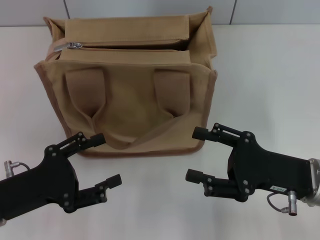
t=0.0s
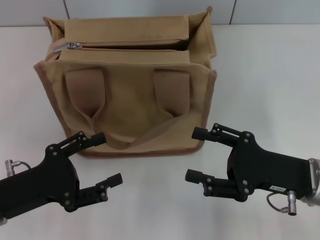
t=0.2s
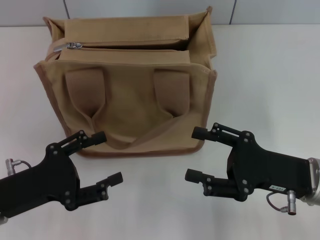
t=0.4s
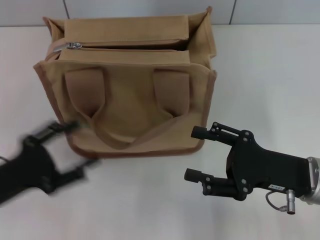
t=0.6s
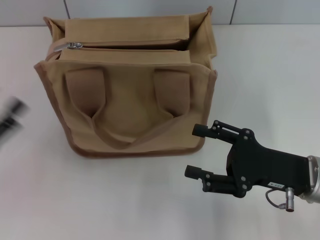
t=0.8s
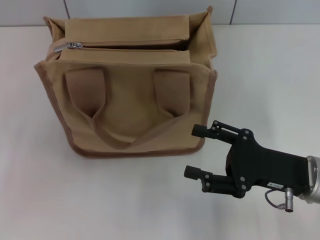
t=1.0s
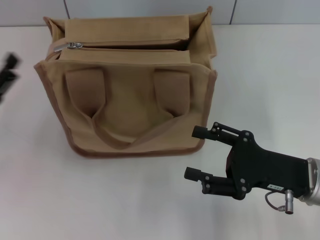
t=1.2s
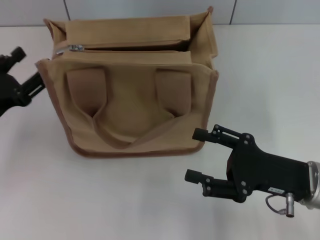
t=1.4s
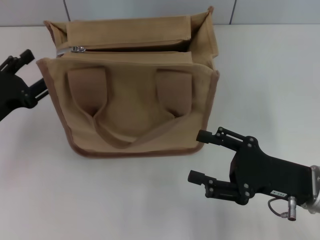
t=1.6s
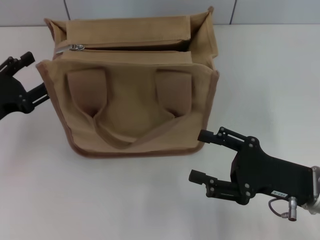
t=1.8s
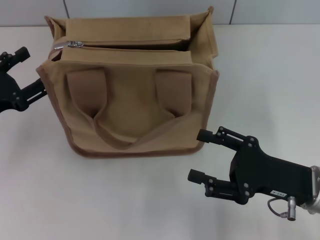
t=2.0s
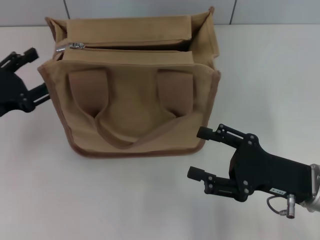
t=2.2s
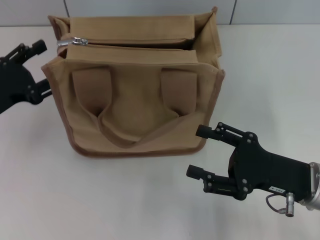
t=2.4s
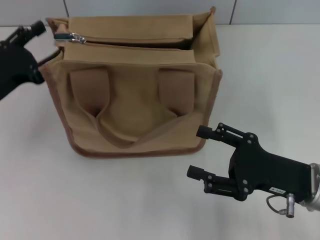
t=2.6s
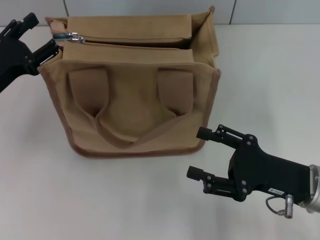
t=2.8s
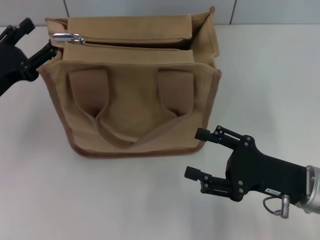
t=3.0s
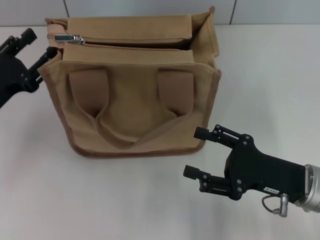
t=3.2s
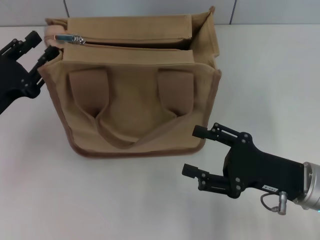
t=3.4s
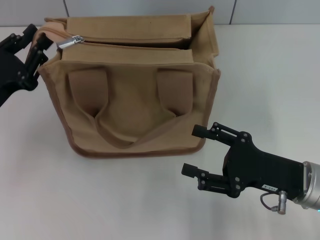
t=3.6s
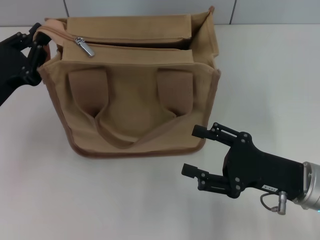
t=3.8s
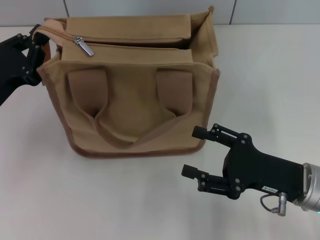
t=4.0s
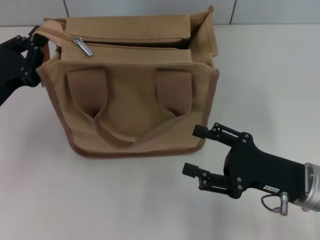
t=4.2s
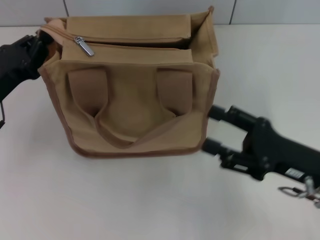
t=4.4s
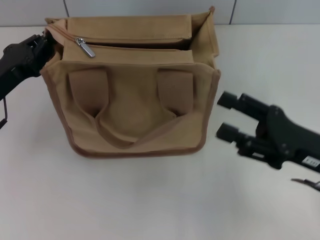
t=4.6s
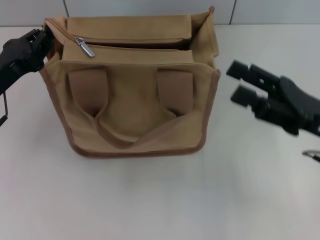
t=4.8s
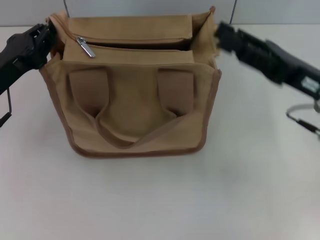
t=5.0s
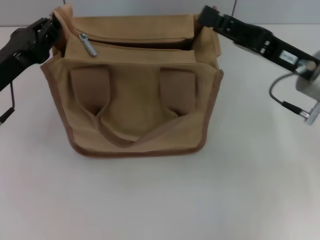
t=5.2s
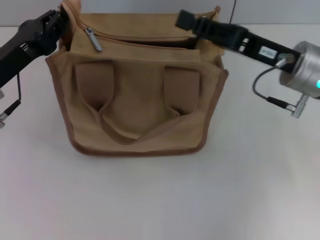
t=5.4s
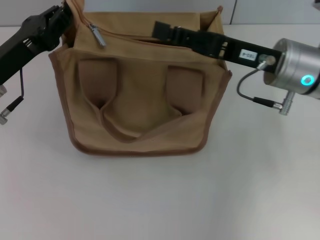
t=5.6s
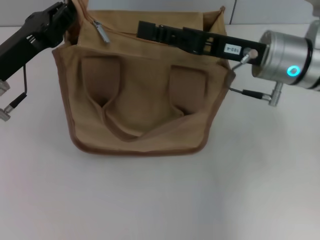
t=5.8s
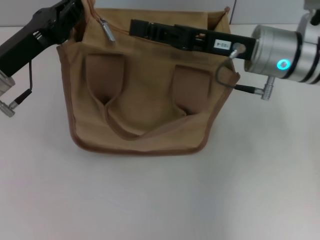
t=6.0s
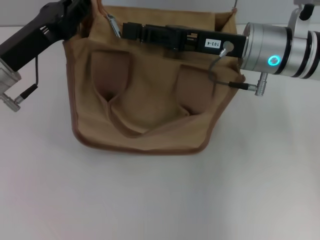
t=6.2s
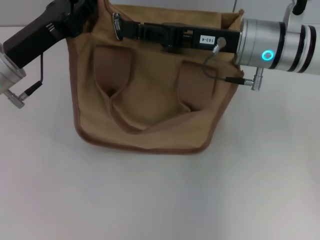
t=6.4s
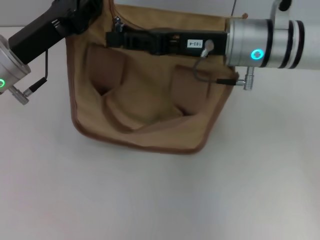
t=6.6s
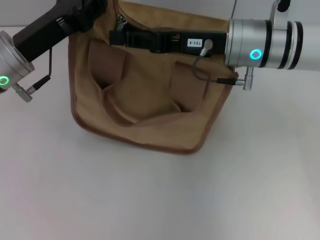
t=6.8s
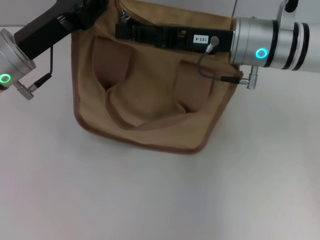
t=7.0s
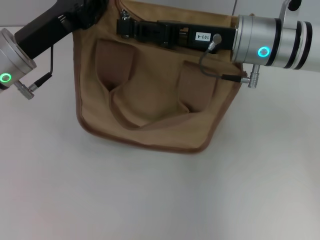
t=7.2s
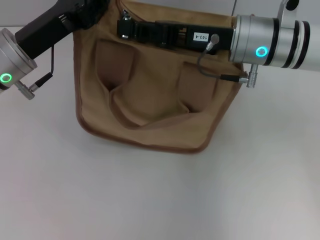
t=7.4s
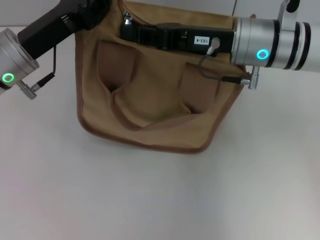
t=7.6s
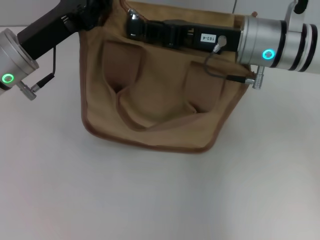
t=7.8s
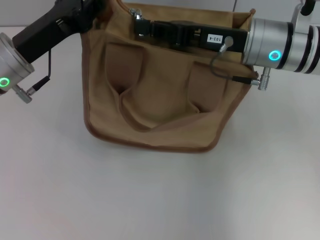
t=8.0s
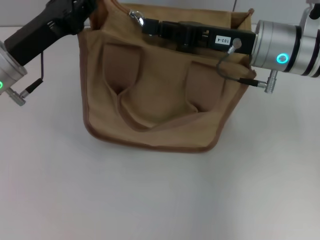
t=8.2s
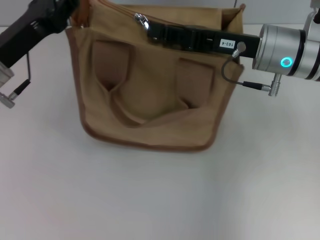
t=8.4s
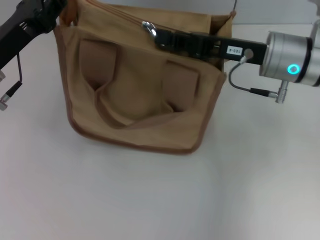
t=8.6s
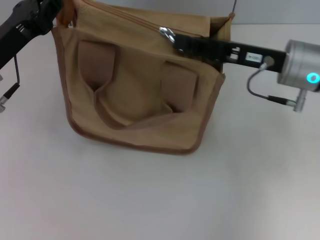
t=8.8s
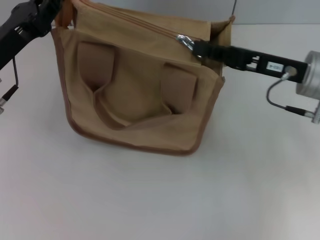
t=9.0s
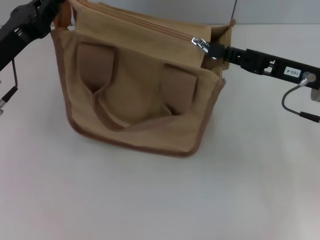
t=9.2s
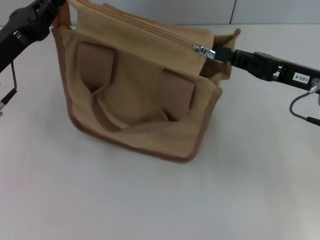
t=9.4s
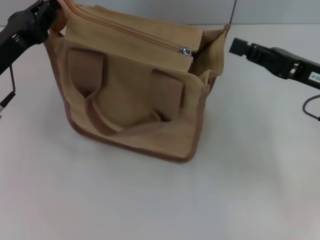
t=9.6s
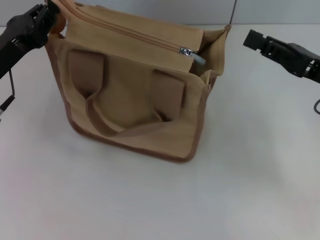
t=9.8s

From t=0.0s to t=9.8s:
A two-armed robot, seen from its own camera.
Step, from t=0.0s to t=9.4s: Pull up the zipper with your right hand.
From t=0.0s to t=1.4s: The left gripper heads forward, covering roughly 5 cm.
From t=1.4s to t=2.8s: The left gripper moves approximately 5 cm.
From t=2.8s to t=4.2s: The left gripper closes up.
From t=4.2s to t=5.6s: The right gripper is displaced forward and upward by about 15 cm, and closes up; the left gripper ends up roughly 5 cm from where it was.
From t=5.6s to t=7.0s: The right gripper ends up approximately 5 cm from where it was. The left gripper ends up approximately 5 cm from where it was.
From t=7.0s to t=8.4s: The grippers make only small movements.
From t=8.4s to t=9.8s: The right gripper moves to the right and backward, some 15 cm.

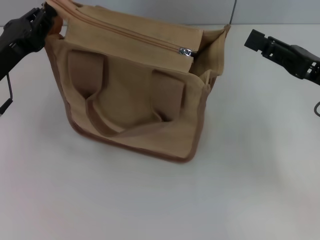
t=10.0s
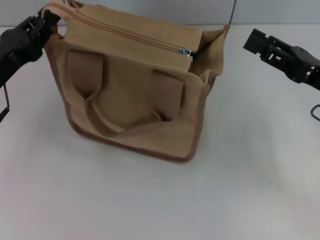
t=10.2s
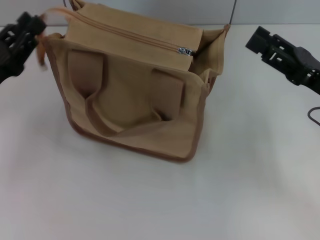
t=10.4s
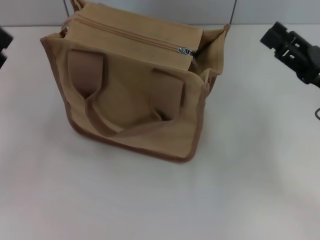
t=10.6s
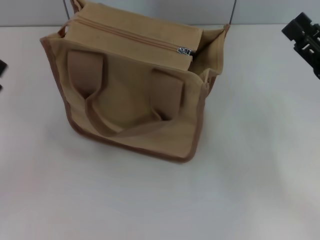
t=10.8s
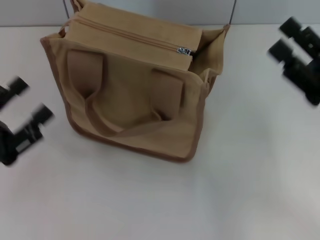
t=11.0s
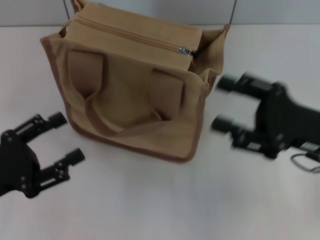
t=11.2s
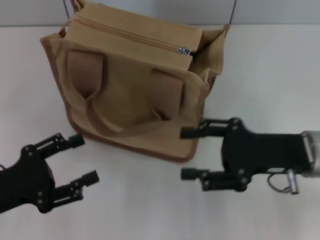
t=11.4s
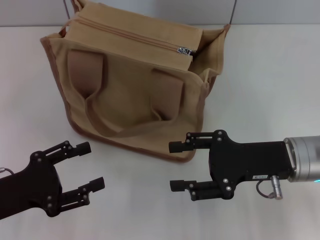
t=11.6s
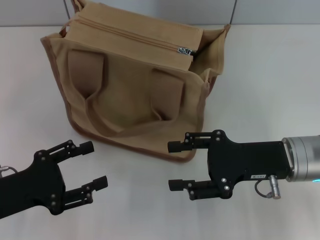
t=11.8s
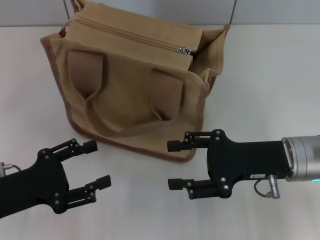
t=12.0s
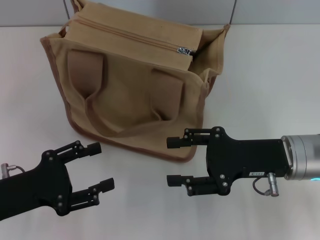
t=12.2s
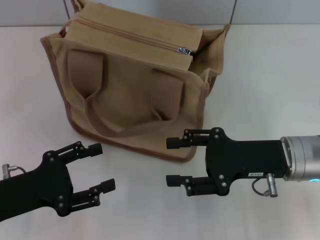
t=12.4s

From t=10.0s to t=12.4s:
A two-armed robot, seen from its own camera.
Step, from t=10.0s to t=10.4s: Grab the zipper with your left hand.
From t=10.0s to t=11.2s: The right gripper moves roughly 5 cm, and opens. The left gripper is displaced backward by approximately 10 cm, and opens its fingers.
From t=11.2s to t=12.4s: The right gripper moves roughly 5 cm.

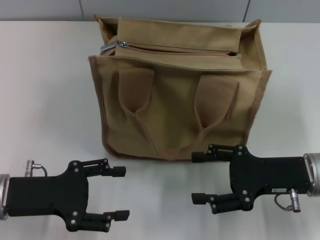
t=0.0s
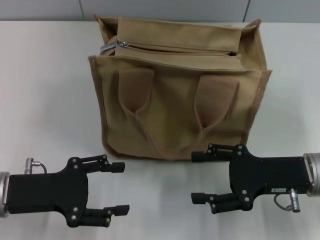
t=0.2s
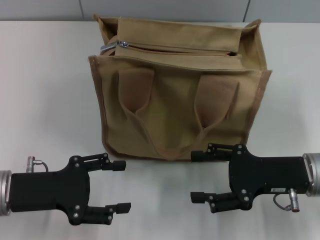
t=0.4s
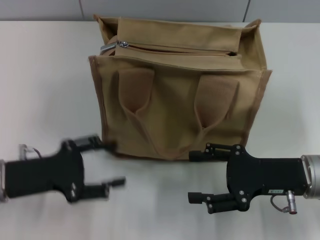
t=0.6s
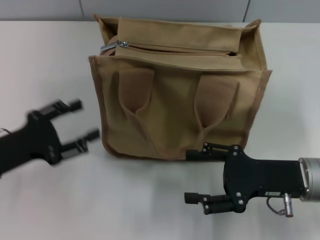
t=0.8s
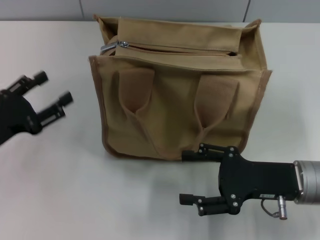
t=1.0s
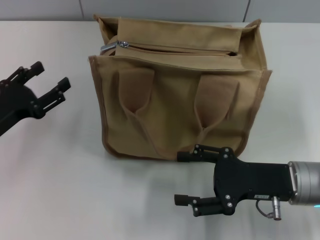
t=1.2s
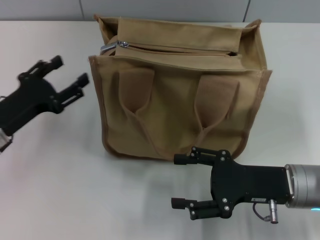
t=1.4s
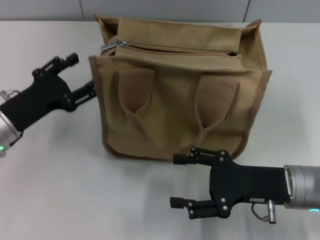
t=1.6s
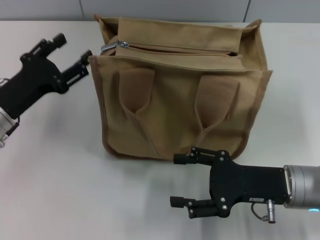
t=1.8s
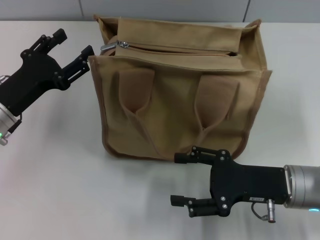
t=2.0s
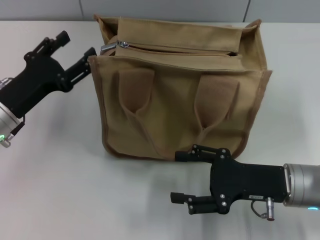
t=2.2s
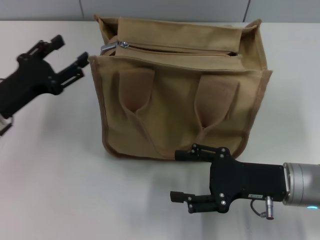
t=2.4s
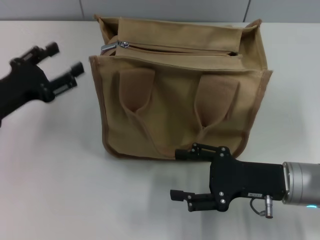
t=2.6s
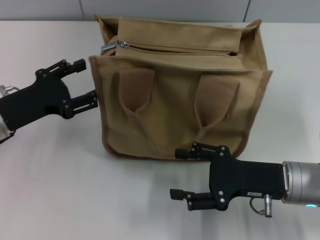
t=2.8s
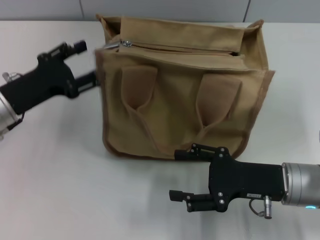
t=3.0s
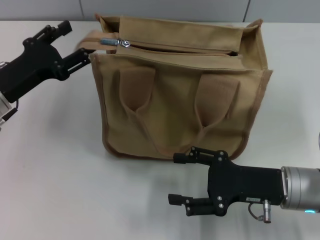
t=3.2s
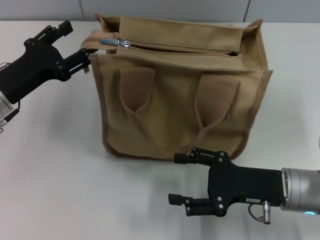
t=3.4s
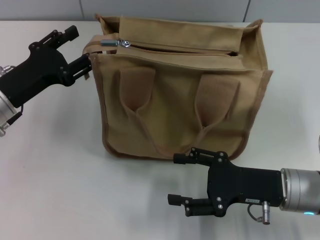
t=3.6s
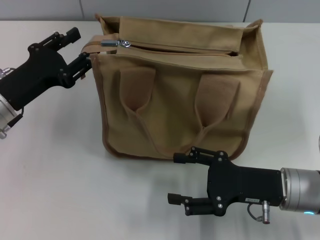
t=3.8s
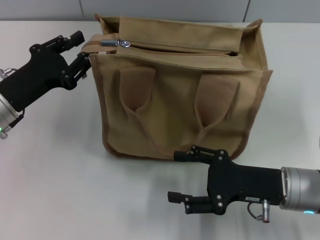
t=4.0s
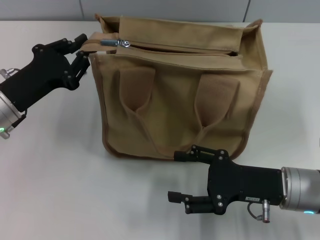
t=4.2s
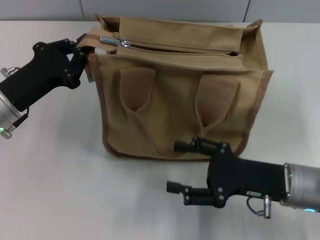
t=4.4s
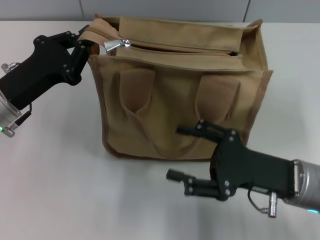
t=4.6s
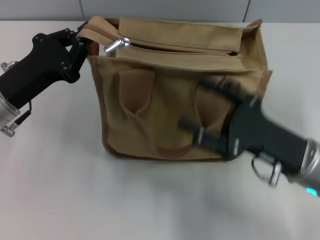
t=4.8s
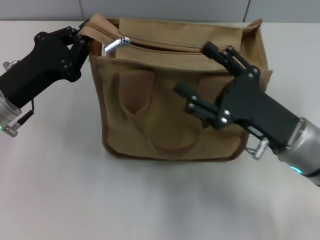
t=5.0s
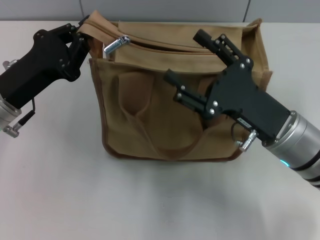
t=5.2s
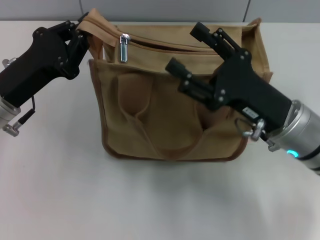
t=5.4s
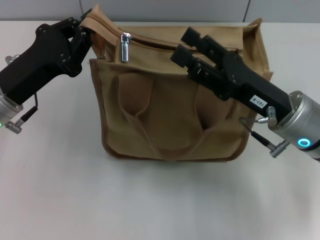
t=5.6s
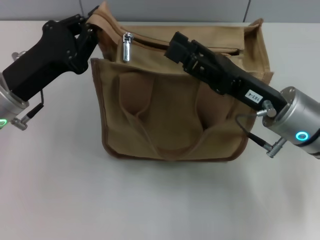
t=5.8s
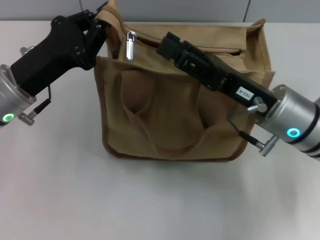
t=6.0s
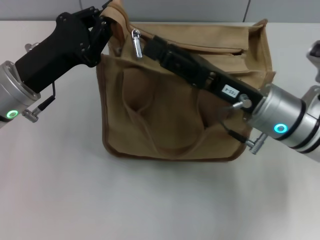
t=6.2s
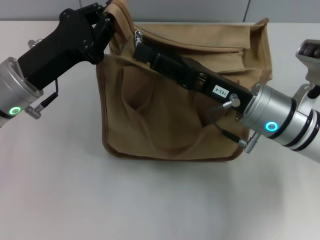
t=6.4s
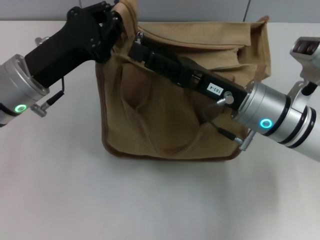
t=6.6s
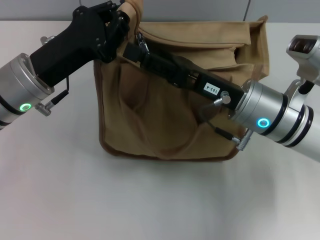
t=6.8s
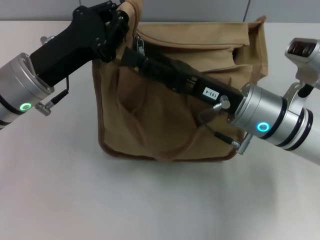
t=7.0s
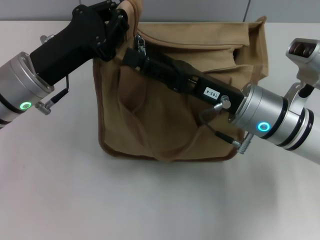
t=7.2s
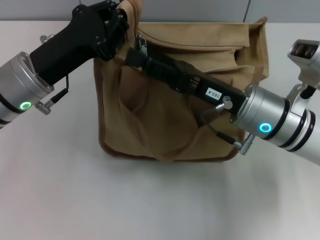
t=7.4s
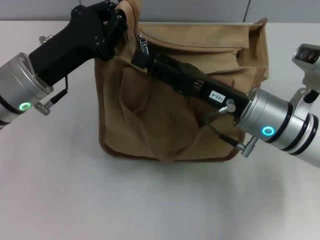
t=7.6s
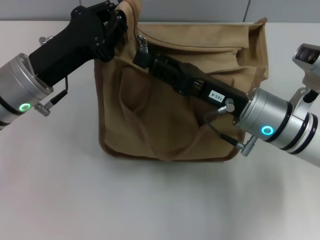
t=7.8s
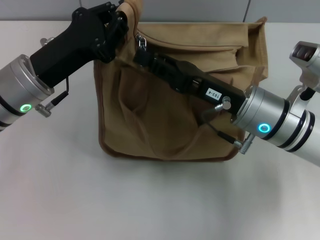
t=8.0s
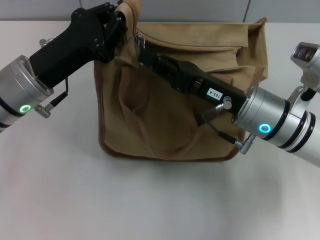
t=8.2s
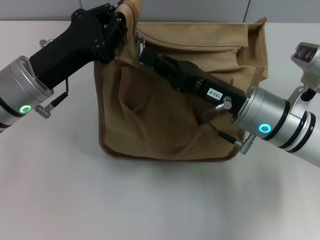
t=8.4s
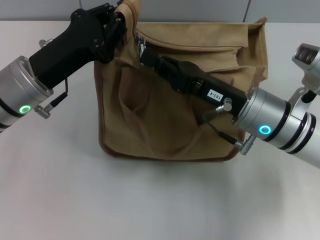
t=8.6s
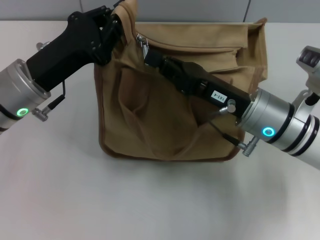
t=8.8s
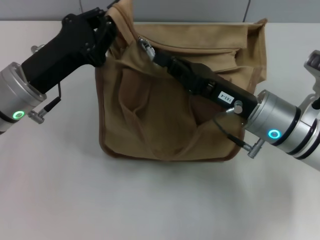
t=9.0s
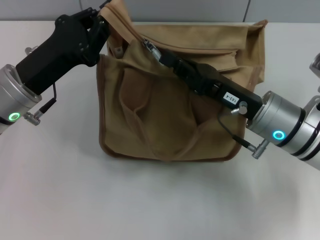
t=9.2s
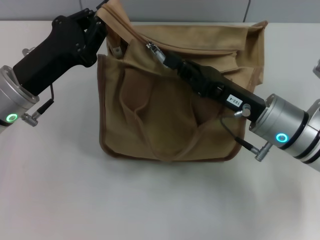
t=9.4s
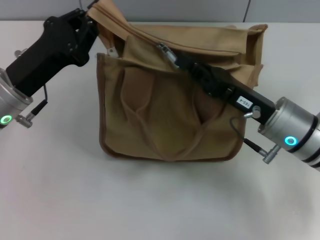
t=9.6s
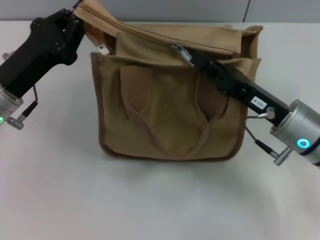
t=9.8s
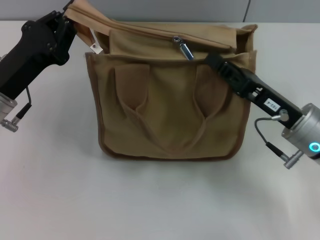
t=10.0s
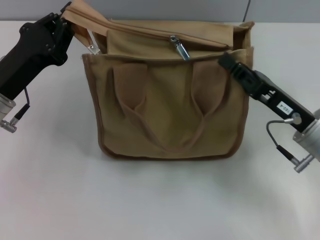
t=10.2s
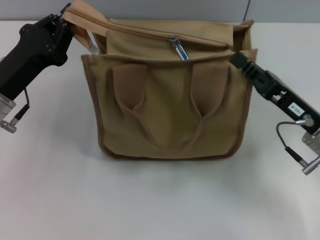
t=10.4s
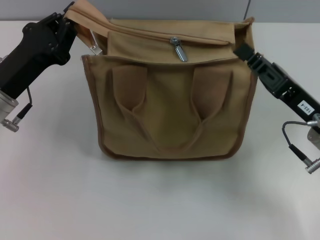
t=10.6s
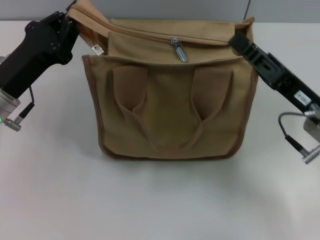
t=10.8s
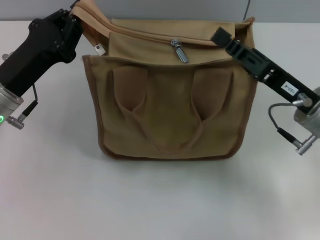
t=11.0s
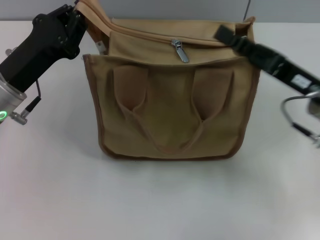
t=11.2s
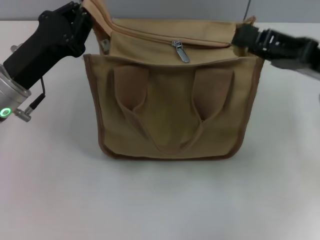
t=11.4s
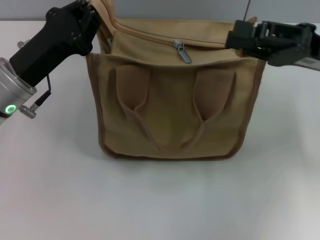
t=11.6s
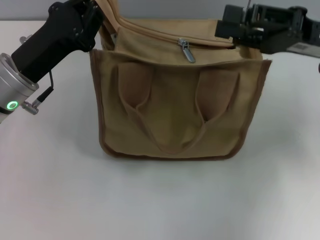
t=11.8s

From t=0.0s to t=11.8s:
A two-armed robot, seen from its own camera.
From t=0.0s to t=1.4s: The left gripper moves forward, some 5 cm.
From t=1.4s to t=3.0s: The grippers make only small movements.
From t=3.0s to t=4.4s: The left gripper closes up.
From t=4.4s to t=6.0s: The right gripper travels forward and upward by some 10 cm.
From t=7.4s to t=8.8s: The right gripper closes up.
From t=8.8s to t=10.4s: The right gripper goes about 10 cm to the right.
From t=10.4s to t=11.8s: The right gripper travels upward and forward by roughly 15 cm, and opens.
